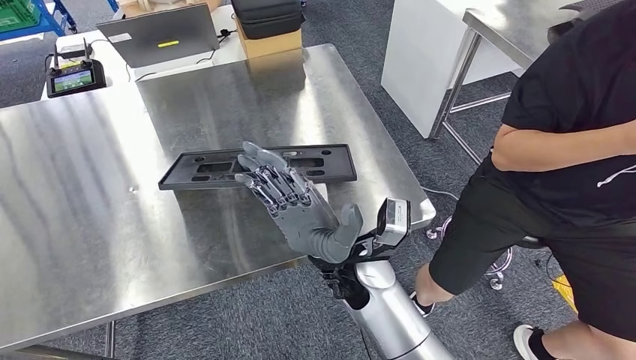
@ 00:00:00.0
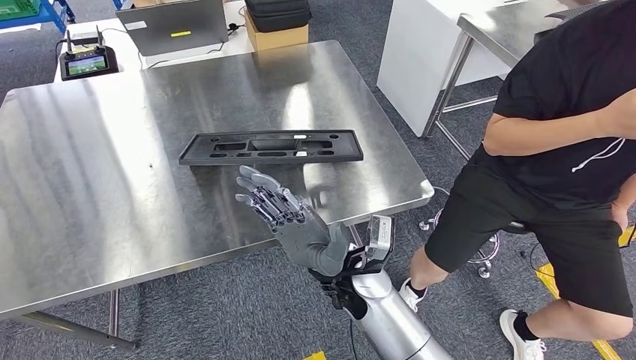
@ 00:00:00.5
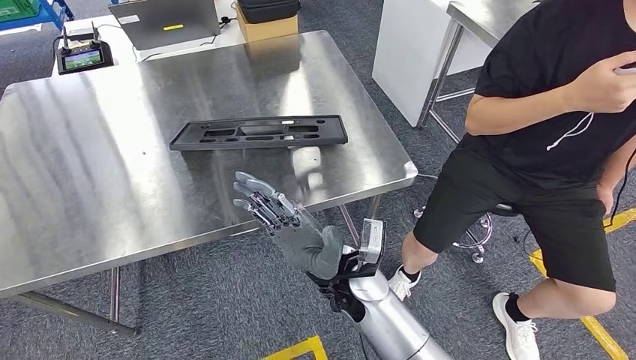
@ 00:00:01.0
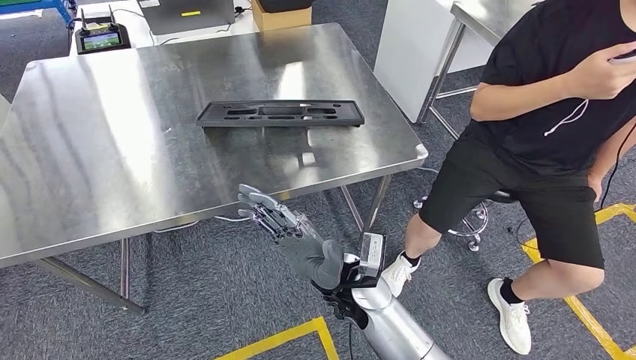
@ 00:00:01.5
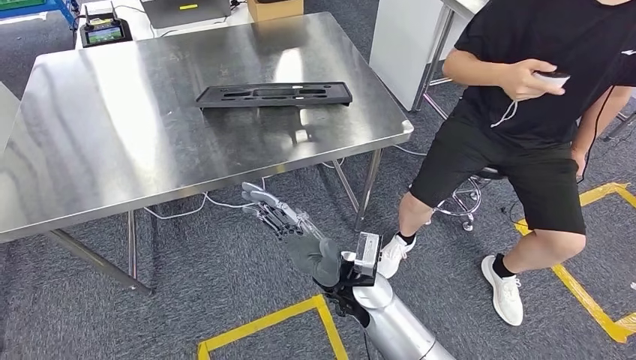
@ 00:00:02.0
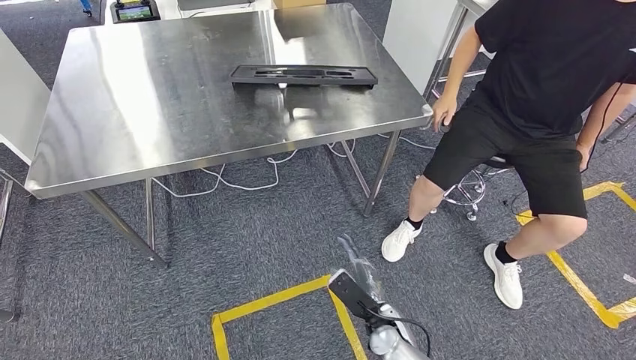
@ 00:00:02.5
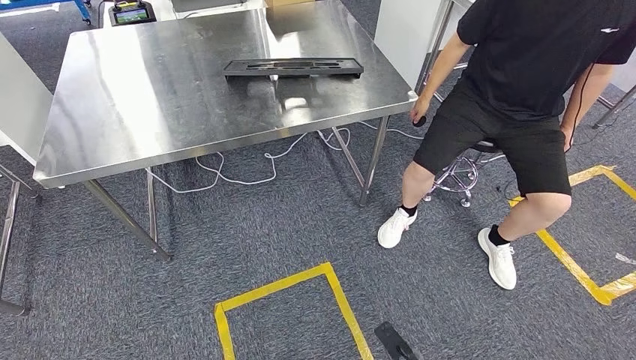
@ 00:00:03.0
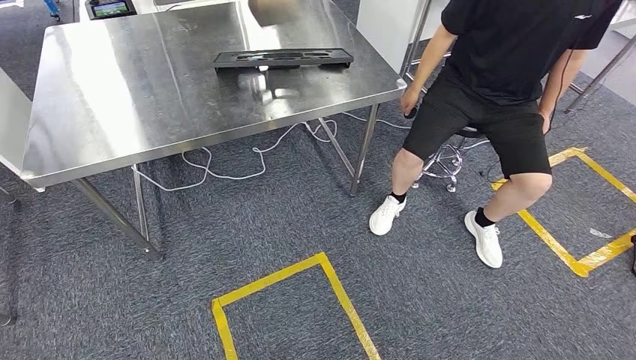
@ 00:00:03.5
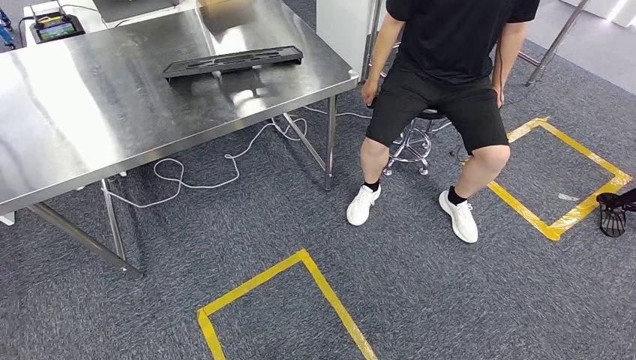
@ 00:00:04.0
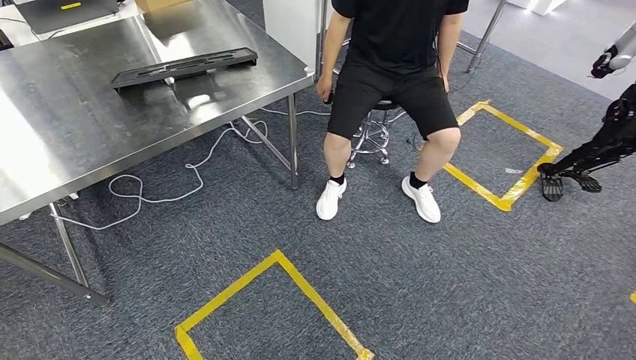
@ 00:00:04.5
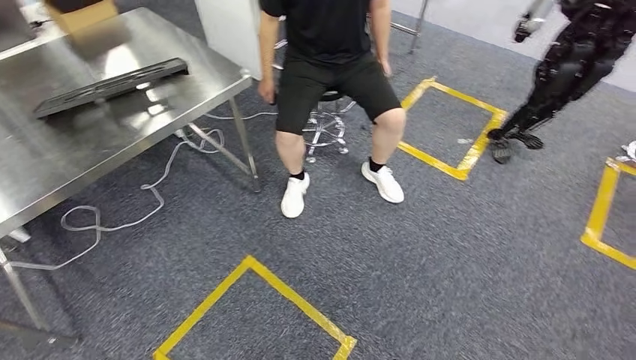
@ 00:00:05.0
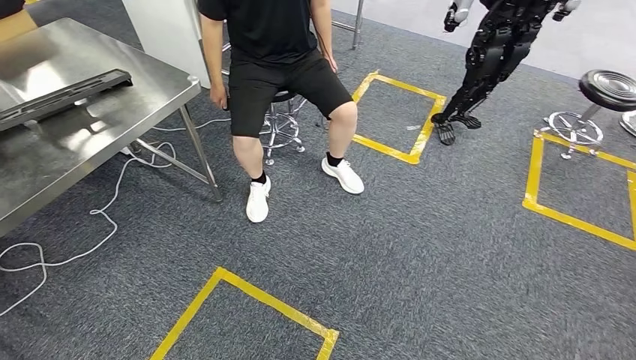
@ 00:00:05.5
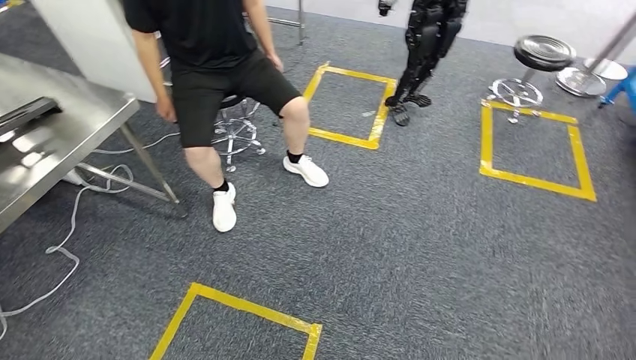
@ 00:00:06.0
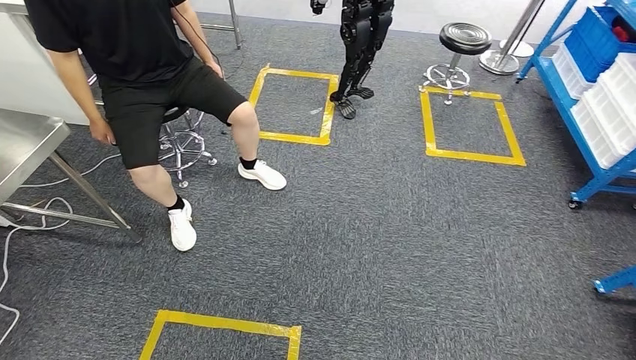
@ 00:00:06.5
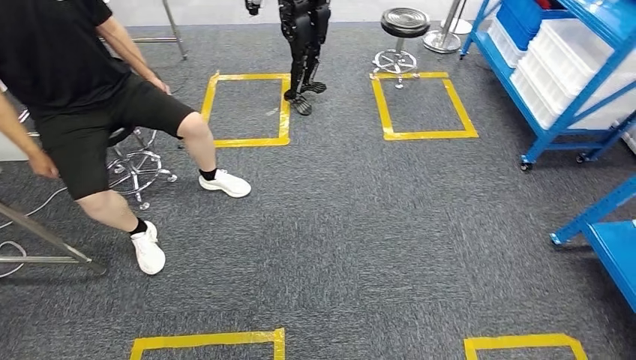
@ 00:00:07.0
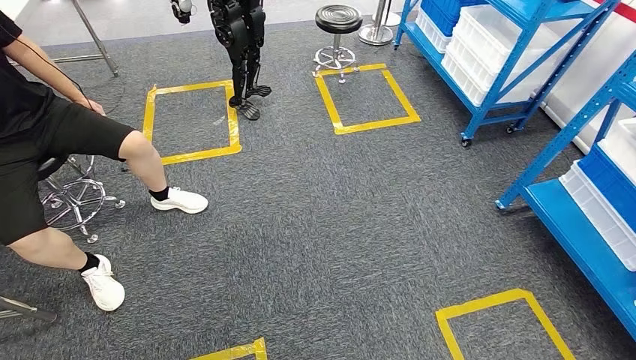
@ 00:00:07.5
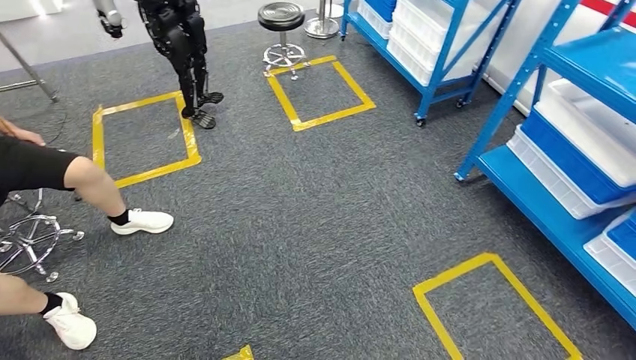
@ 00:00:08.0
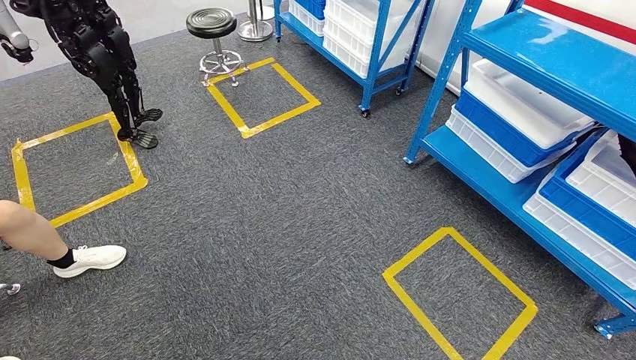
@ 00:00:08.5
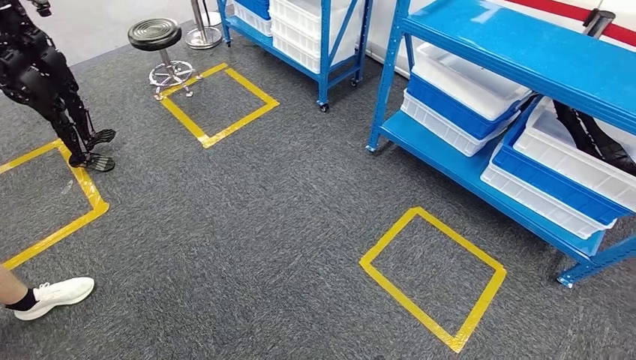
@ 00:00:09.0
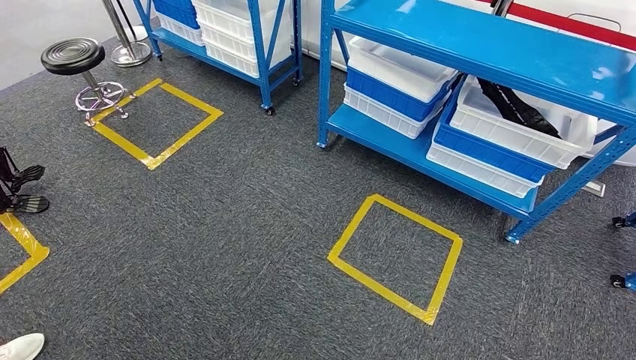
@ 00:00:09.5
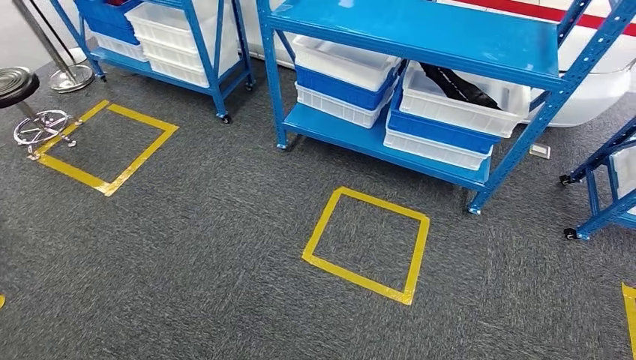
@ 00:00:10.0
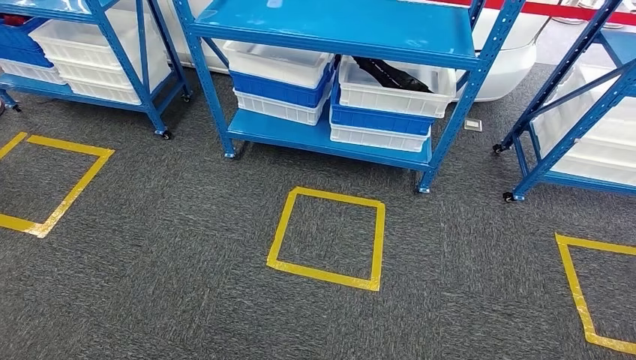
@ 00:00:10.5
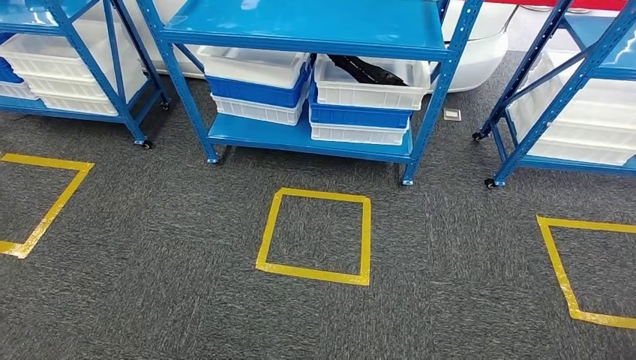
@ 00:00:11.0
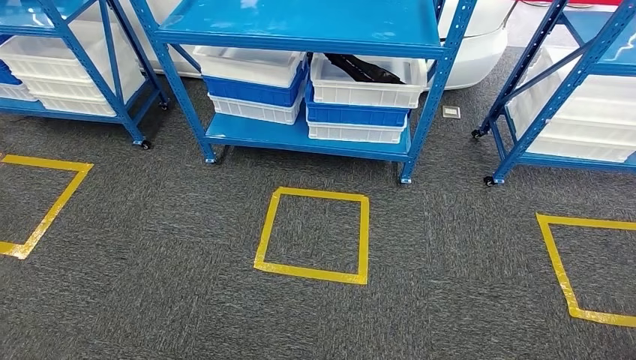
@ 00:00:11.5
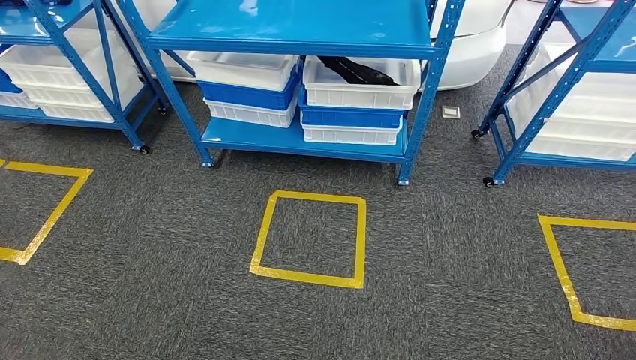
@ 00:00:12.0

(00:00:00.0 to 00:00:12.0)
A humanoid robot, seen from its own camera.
Step, 00:00:00.0 - 00:00:03.5: Insert the large material into the corresponding slot on the workbench.

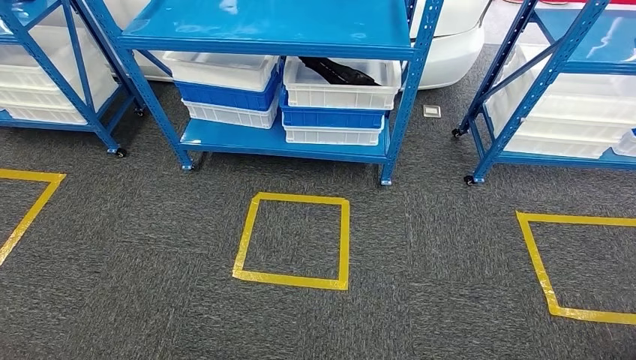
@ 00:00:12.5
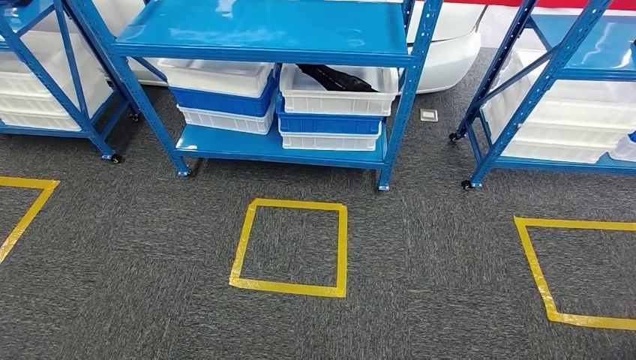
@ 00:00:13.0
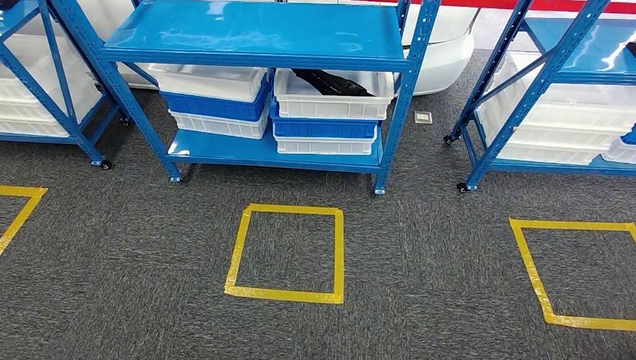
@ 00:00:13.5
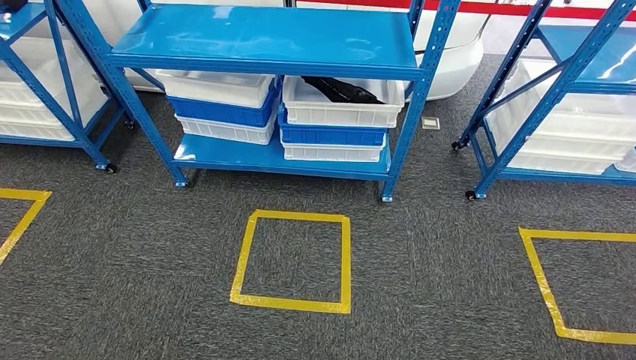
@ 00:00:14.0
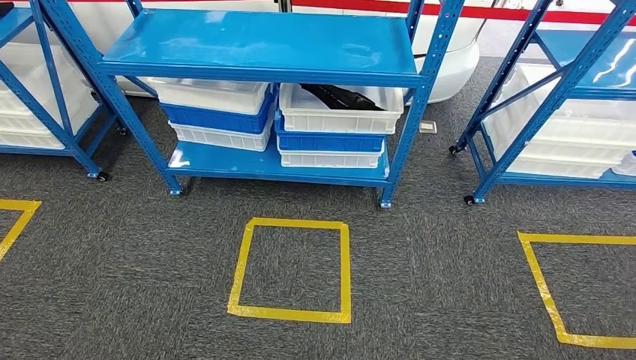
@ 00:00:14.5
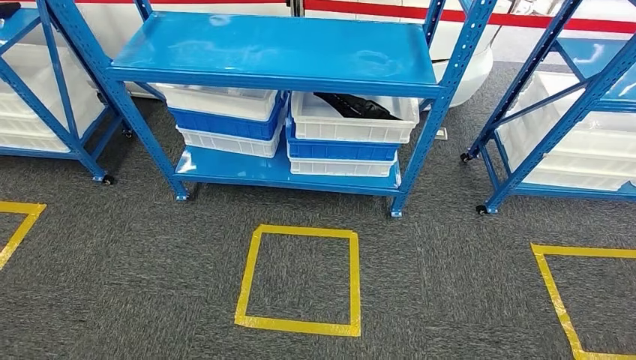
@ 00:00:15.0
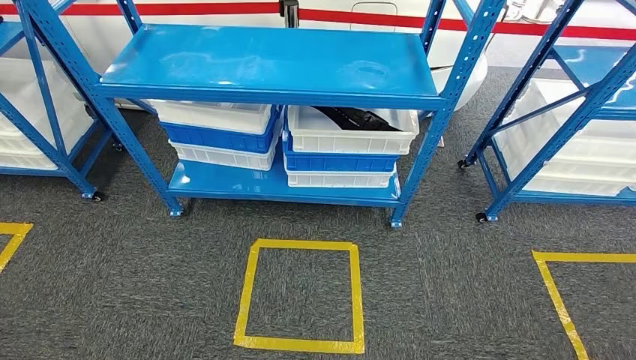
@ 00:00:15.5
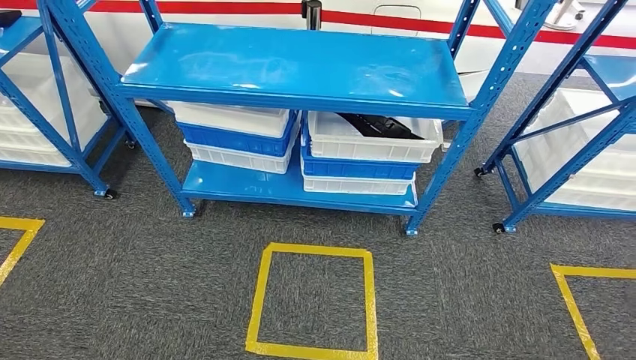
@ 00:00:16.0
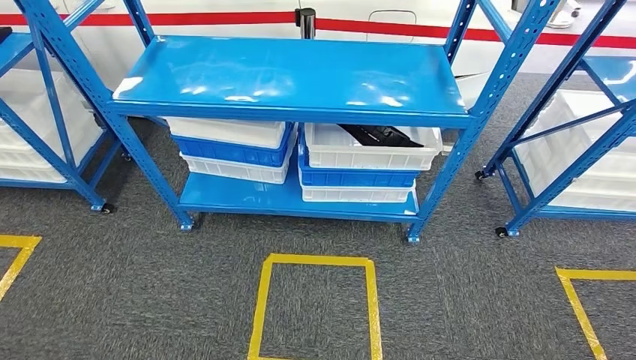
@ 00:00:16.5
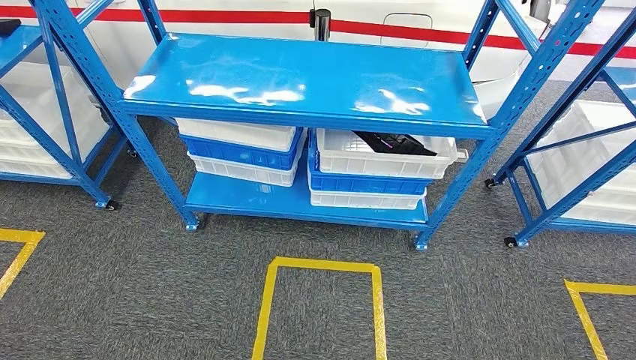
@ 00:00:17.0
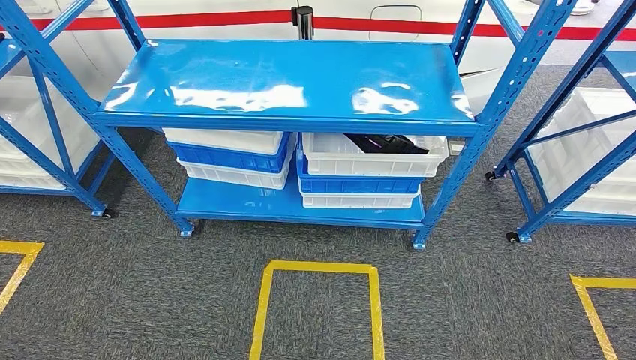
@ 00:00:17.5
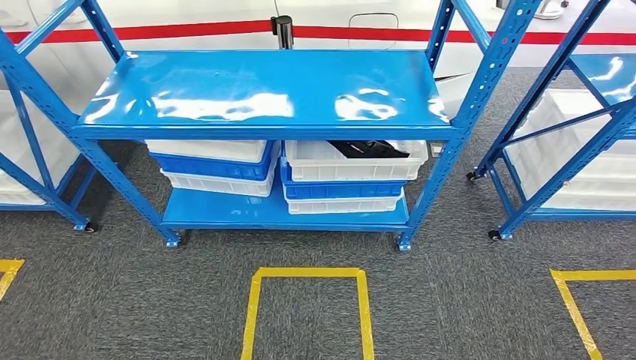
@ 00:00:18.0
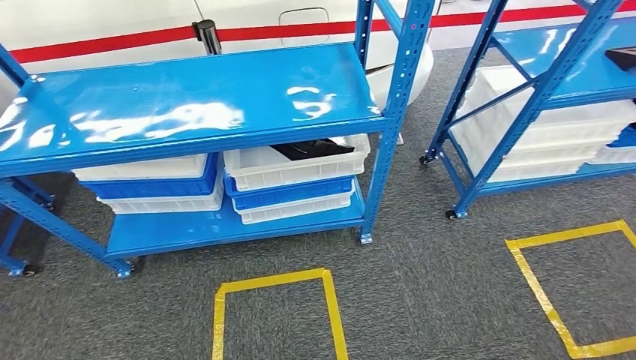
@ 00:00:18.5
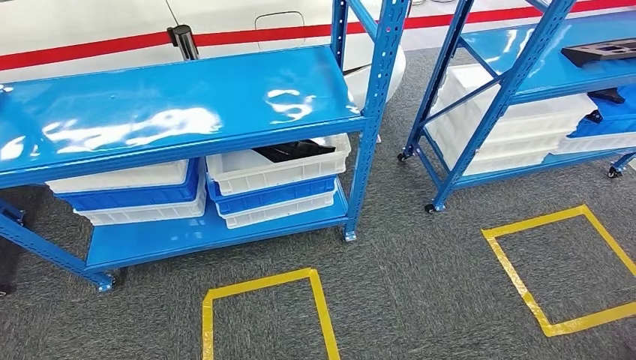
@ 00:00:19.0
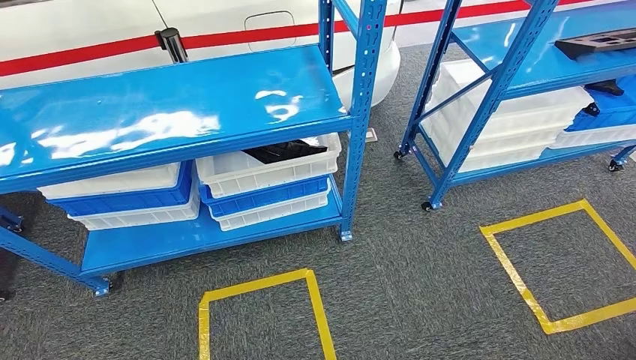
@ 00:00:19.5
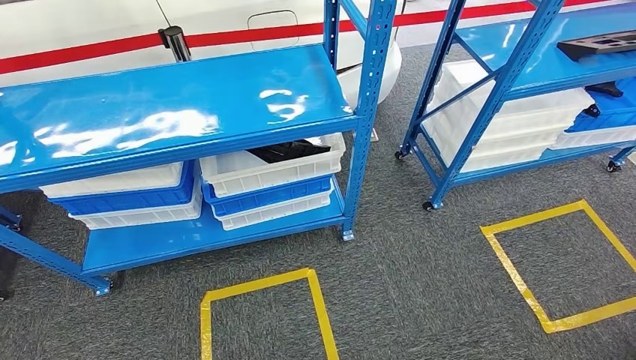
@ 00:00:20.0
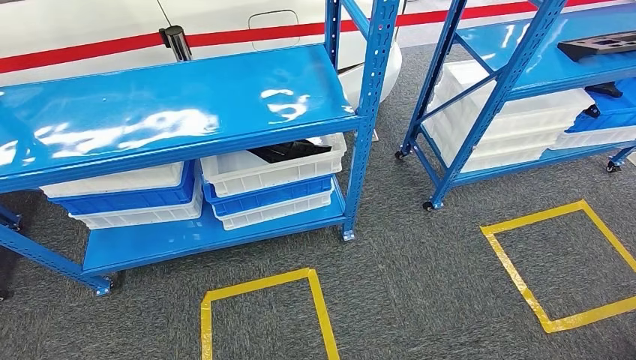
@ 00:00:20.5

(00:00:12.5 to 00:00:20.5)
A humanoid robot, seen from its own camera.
Step, 00:00:12.5 - 00:00:20.5: Return to the initial position at the shelf.
